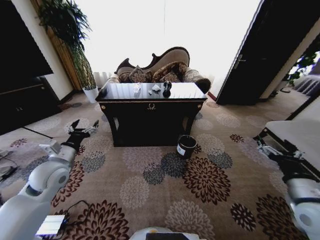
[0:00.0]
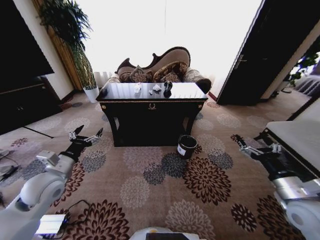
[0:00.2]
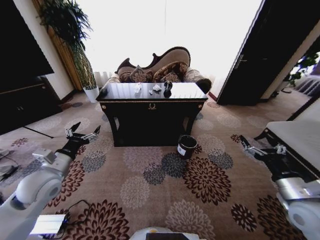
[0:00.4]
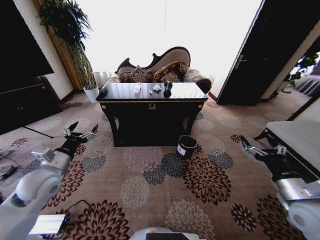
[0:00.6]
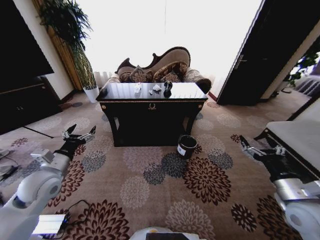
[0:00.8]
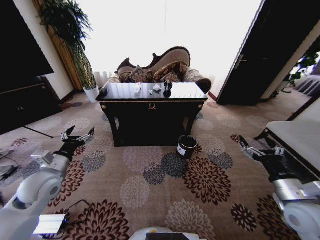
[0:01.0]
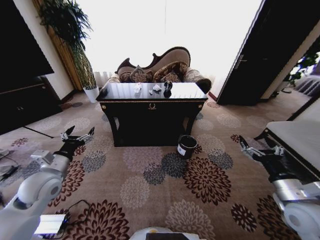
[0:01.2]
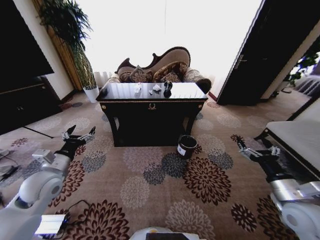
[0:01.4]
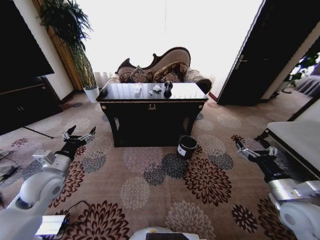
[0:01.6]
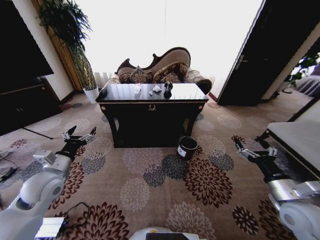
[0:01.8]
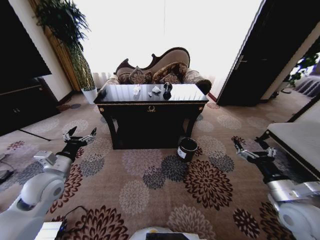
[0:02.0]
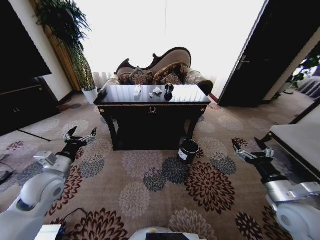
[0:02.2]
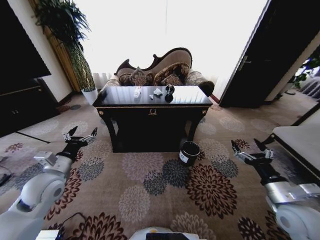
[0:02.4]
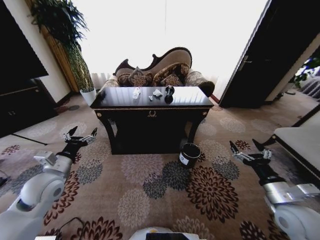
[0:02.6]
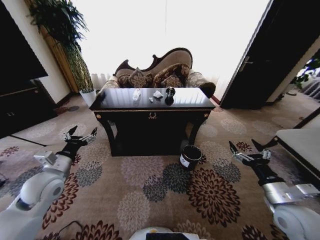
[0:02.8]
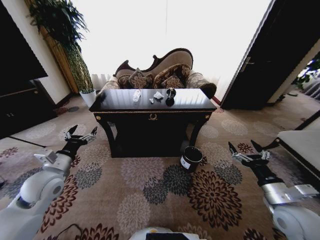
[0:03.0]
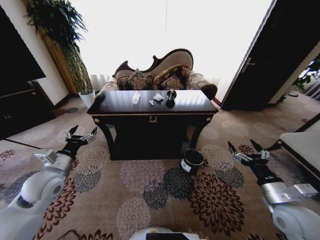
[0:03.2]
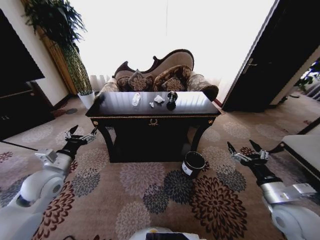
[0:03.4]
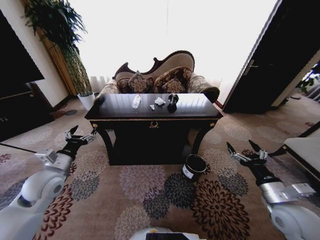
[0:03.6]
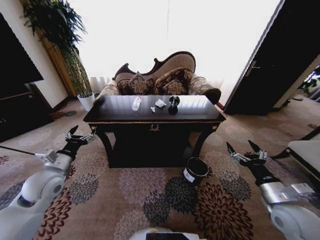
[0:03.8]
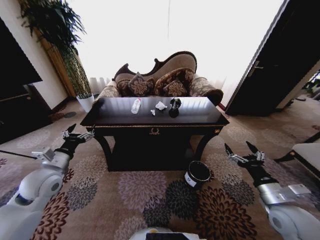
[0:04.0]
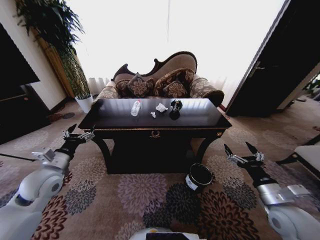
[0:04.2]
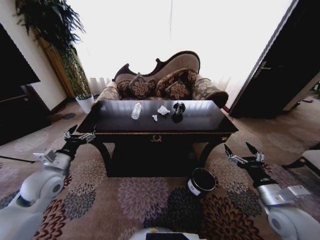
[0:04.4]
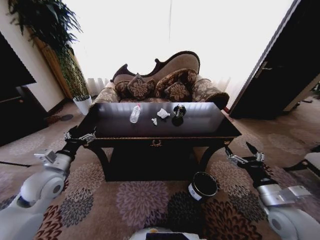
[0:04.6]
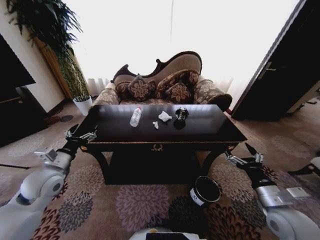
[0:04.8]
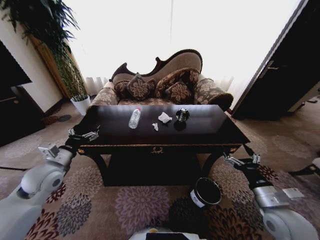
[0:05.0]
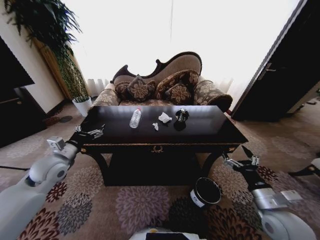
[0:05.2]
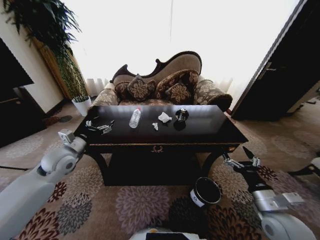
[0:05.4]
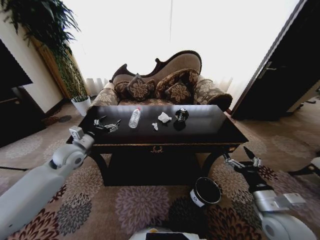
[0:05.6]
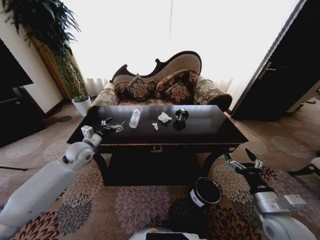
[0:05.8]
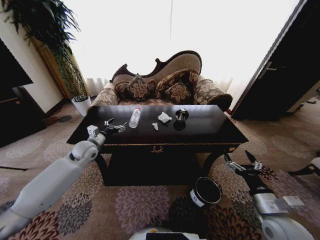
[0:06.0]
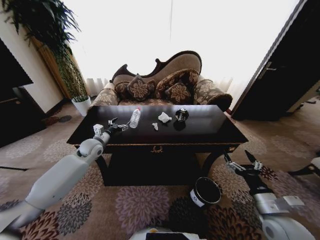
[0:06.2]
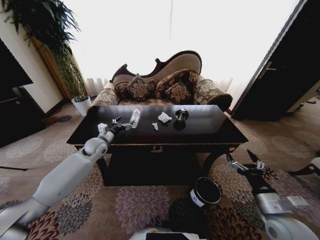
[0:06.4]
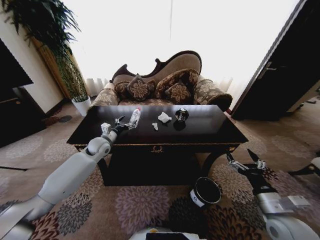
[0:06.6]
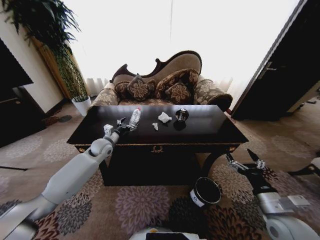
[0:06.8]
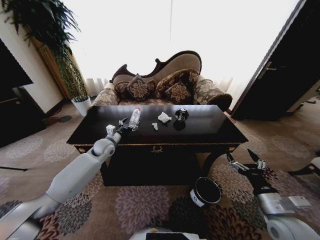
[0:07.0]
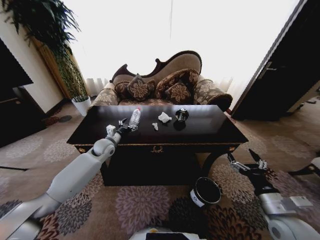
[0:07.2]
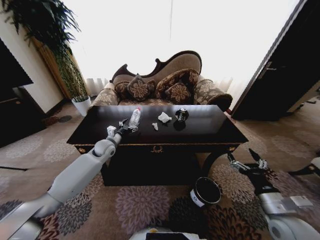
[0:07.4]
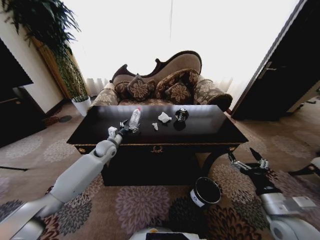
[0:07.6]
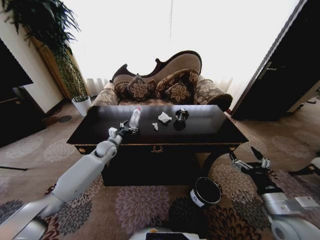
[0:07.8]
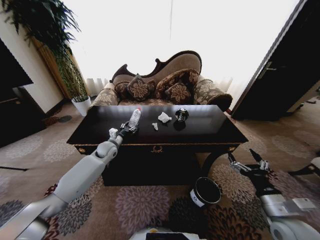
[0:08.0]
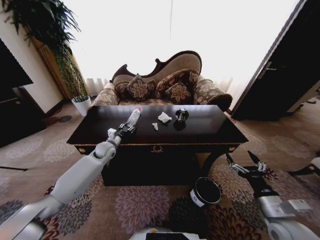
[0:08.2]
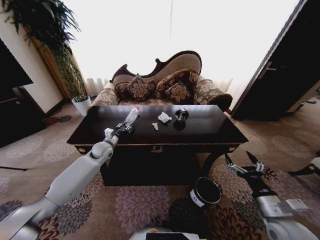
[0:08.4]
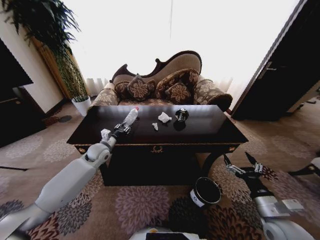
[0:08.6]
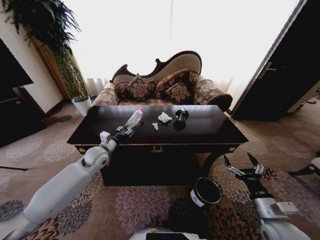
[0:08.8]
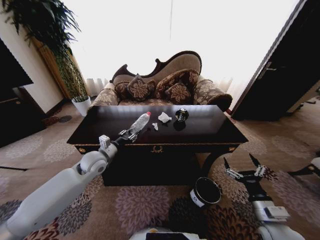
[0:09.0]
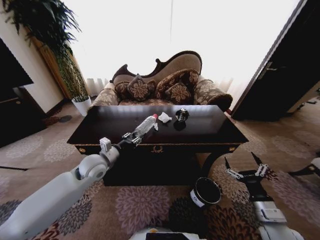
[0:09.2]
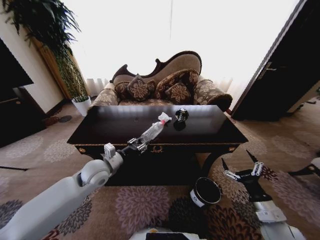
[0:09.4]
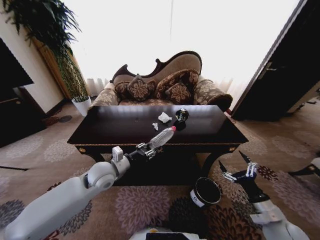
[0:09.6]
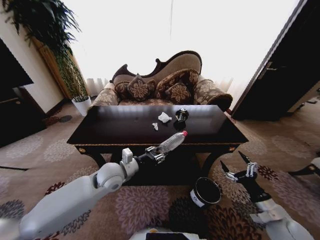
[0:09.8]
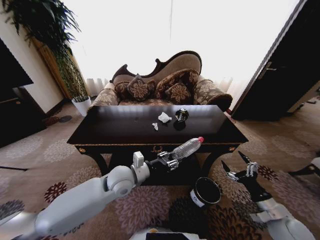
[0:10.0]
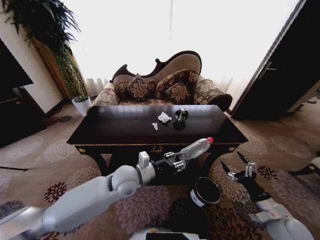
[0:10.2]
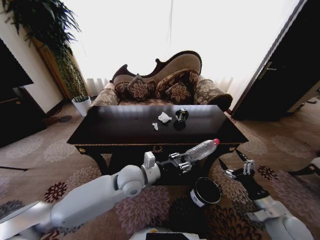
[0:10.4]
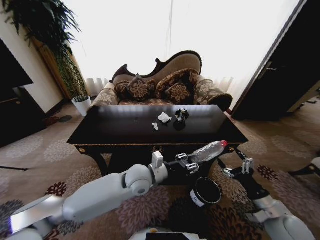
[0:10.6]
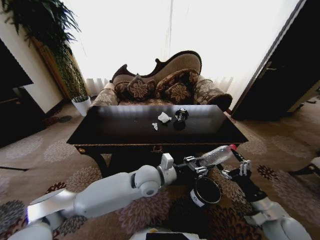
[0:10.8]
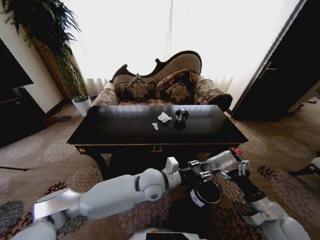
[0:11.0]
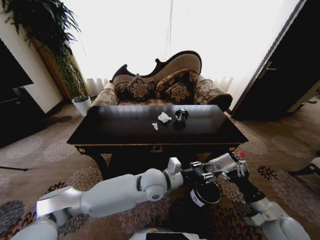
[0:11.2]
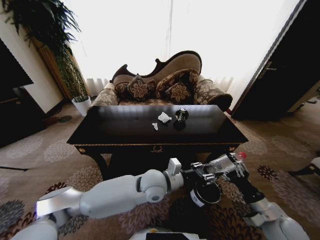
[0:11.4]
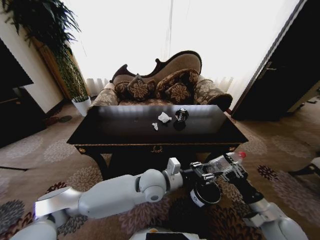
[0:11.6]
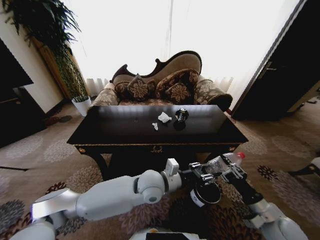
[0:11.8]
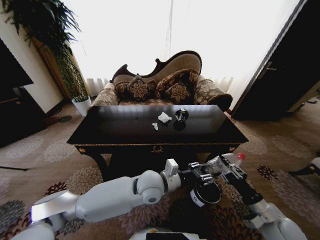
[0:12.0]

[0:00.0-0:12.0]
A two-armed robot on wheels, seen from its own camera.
Task of the whole recording: Move to the front of the table and place the trash on the table into the trash bin.
0:04.4 to 0:06.0: The left gripper travels forward by approximately 15 cm.
0:06.0 to 0:07.6: The left gripper heads to the right, covering some 5 cm.
0:07.6 to 0:09.0: The left gripper goes approximately 10 cm backward, and closes its fingers.
0:09.0 to 0:10.4: The right gripper shifts by about 5 cm; the left gripper travels to the right and backward by about 20 cm.
0:10.4 to 0:12.0: The left gripper heads to the right, covering some 5 cm, while the right gripper closes its fingers.

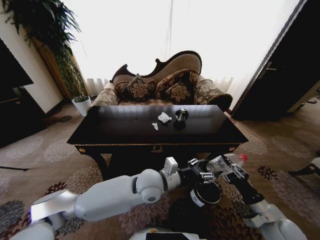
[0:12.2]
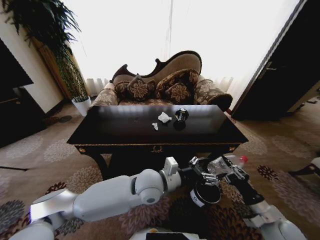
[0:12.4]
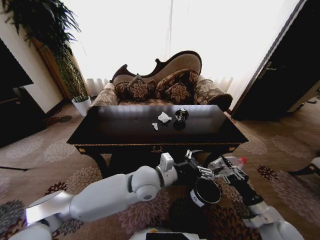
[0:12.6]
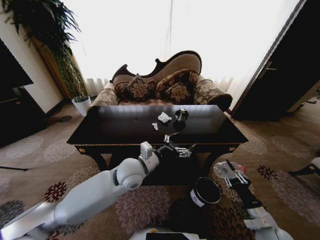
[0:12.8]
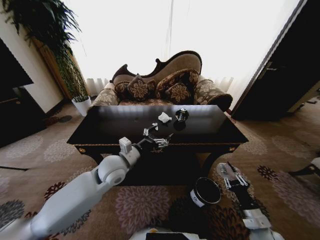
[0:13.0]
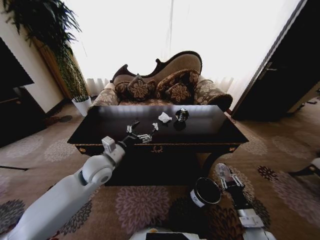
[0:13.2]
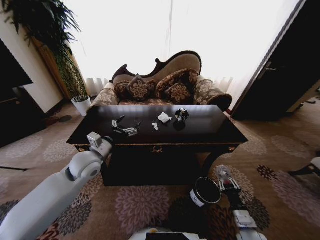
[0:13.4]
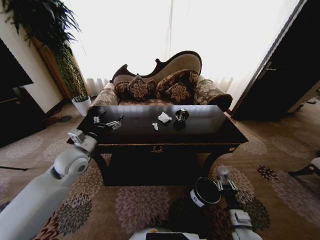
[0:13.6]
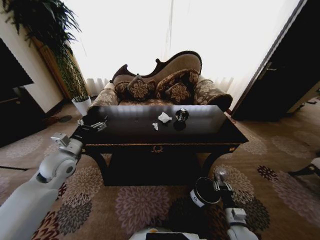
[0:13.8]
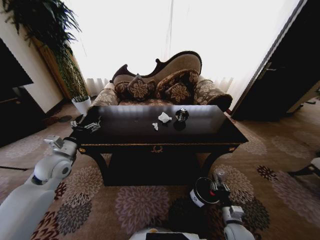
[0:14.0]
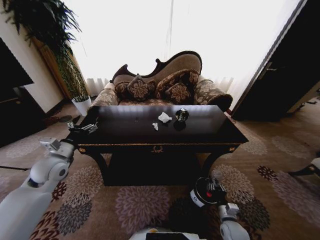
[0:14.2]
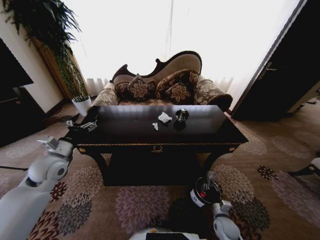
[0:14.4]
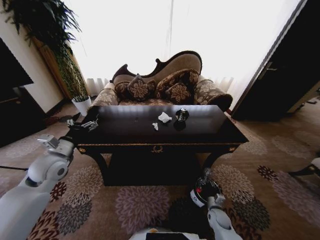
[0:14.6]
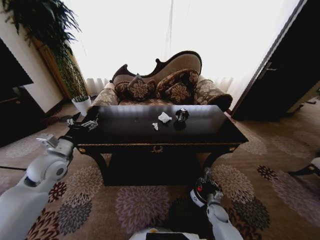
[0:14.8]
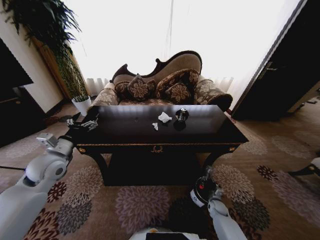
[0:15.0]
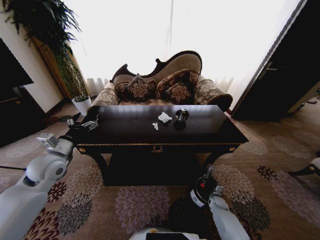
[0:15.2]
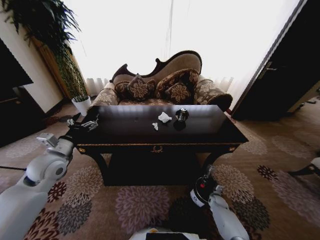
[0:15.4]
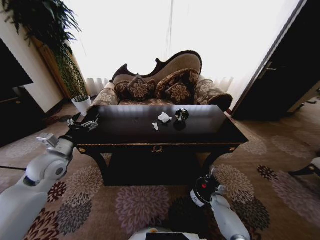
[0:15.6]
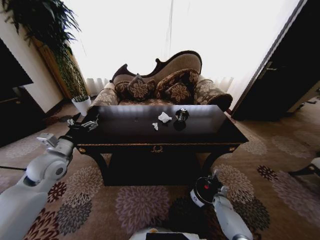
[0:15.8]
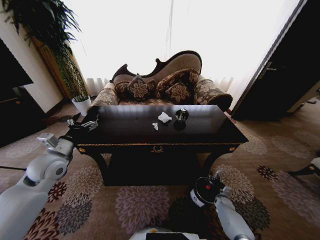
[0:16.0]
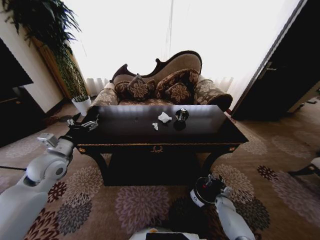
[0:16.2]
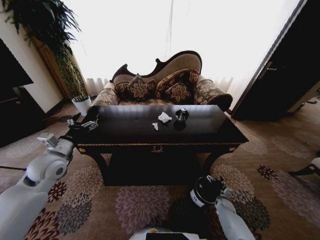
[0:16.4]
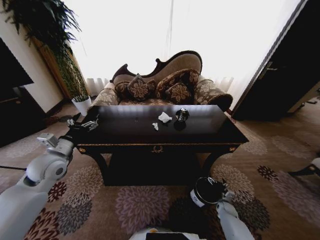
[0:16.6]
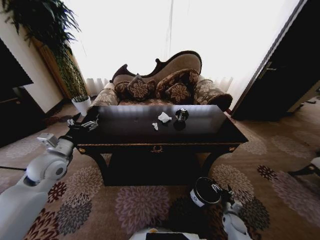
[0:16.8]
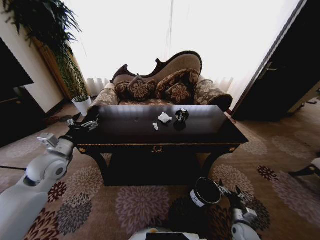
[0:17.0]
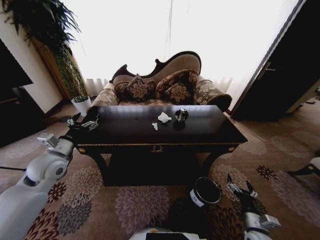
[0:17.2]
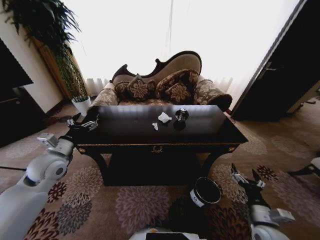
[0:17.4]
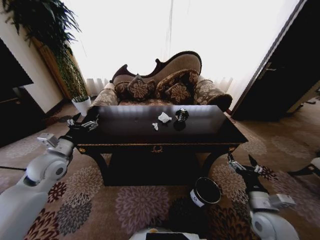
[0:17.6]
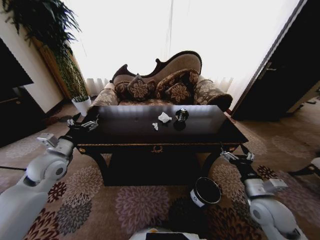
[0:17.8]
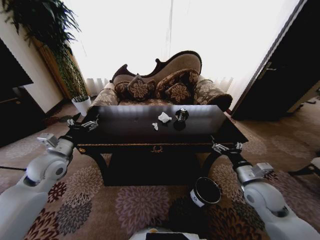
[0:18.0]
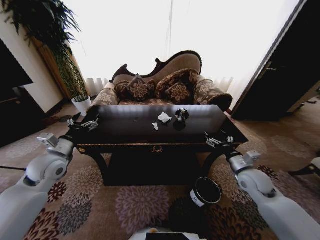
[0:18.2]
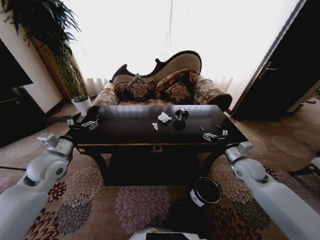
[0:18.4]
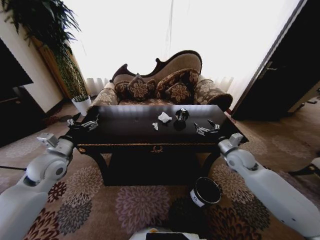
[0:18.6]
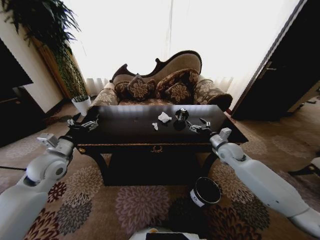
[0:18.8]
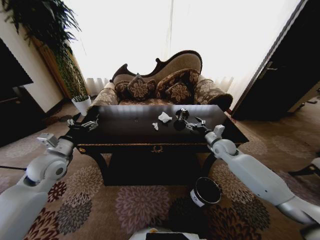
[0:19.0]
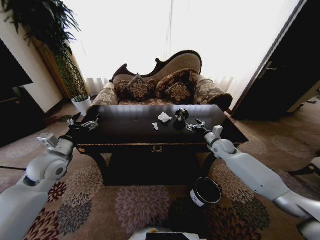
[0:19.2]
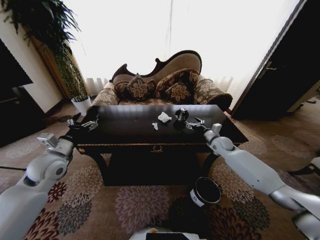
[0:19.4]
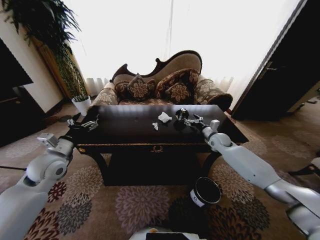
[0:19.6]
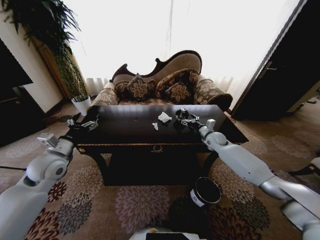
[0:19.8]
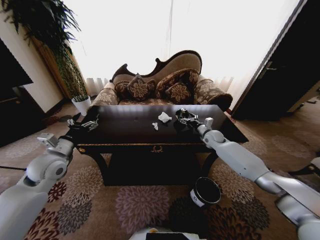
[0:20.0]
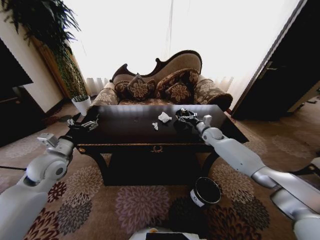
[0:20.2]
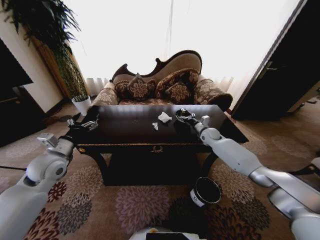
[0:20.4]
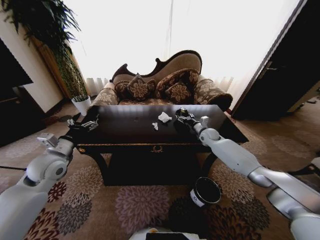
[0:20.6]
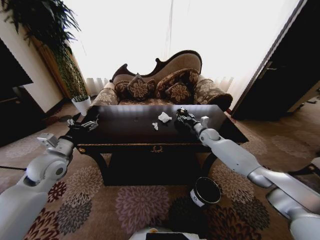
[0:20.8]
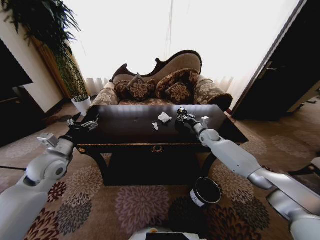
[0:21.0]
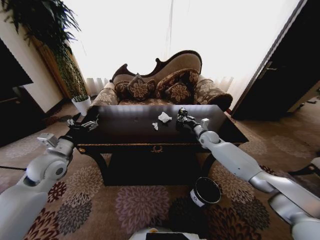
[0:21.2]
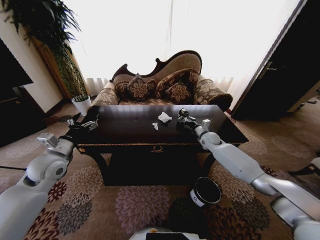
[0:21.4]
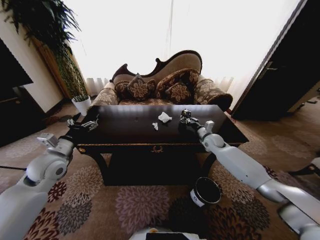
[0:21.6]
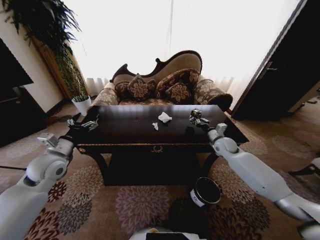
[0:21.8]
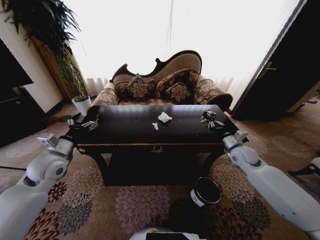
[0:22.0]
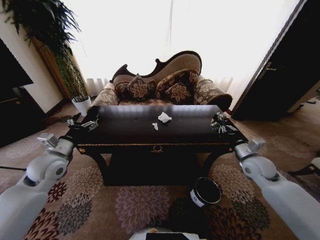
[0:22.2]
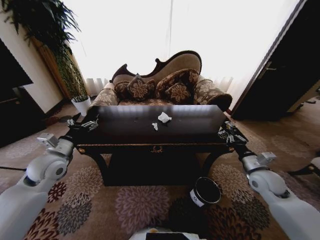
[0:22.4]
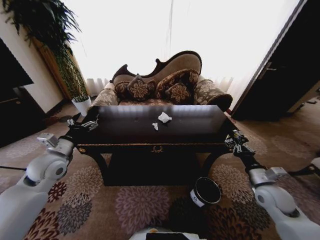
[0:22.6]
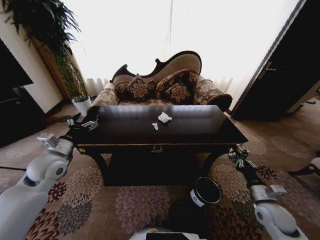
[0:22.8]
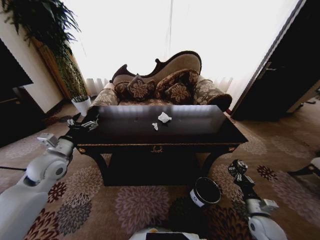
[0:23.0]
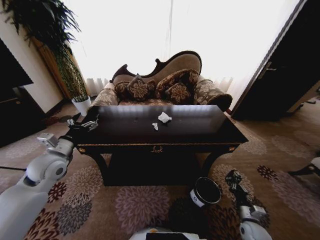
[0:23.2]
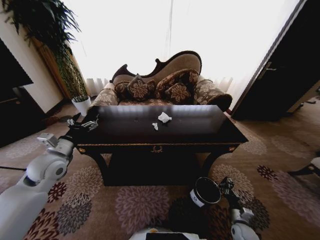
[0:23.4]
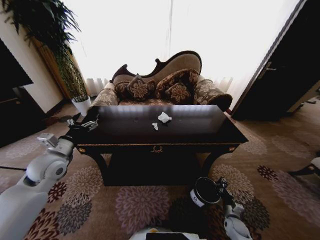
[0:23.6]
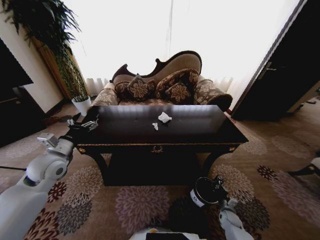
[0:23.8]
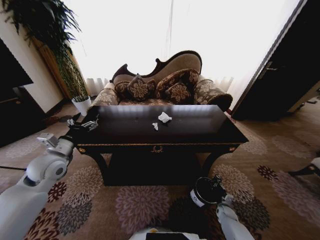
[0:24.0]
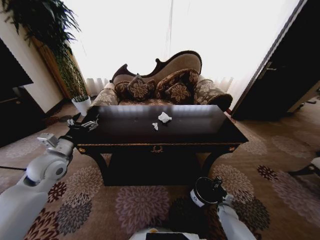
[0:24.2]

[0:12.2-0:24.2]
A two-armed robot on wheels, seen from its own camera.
Task of the whole recording: Move to the front of the table and place the trash on the table into the trash bin.
0:12.2 to 0:13.8: The right gripper heads downward and to the left, covering some 15 cm; the left gripper is displaced to the left by some 35 cm, and opens up.
0:13.8 to 0:15.2: The right gripper travels forward and downward by roughly 20 cm.
0:15.2 to 0:16.6: The right gripper opens.
0:16.6 to 0:18.2: The right gripper shifts approximately 35 cm upward.
0:18.2 to 0:19.8: The right gripper goes approximately 25 cm forward.
0:19.8 to 0:21.2: The right gripper closes up.
0:21.2 to 0:22.6: The right gripper shifts approximately 30 cm backward.
0:22.6 to 0:24.2: The right gripper heads downward, covering about 35 cm.
